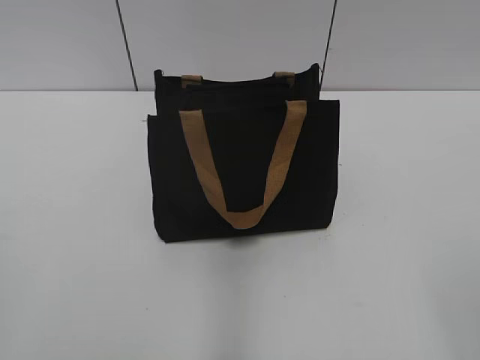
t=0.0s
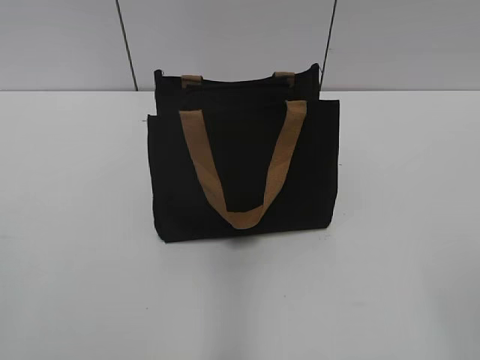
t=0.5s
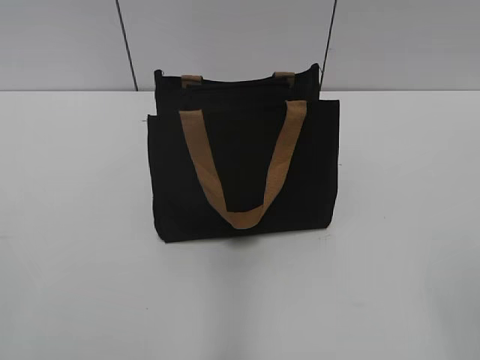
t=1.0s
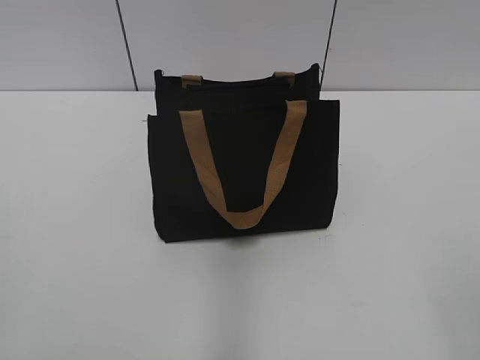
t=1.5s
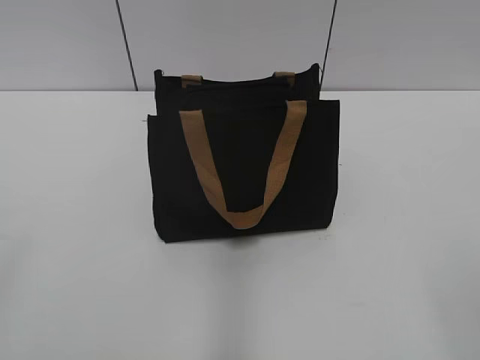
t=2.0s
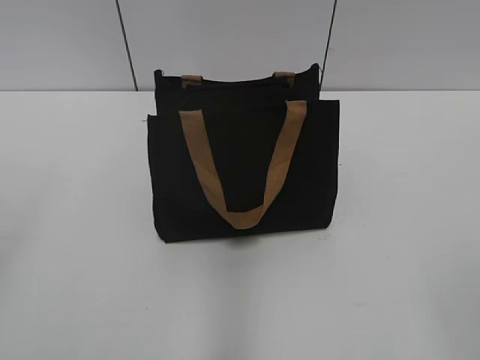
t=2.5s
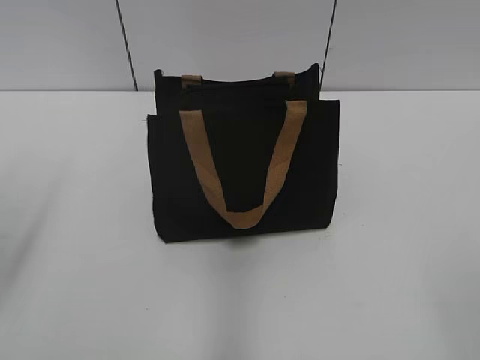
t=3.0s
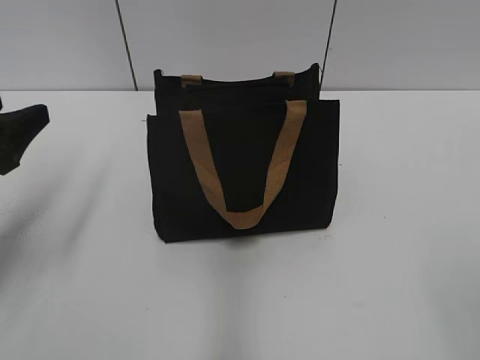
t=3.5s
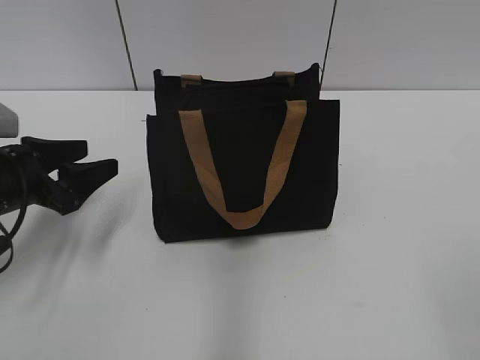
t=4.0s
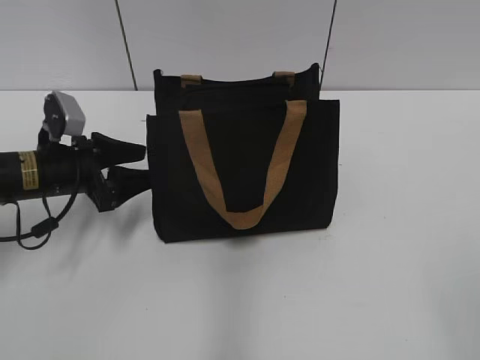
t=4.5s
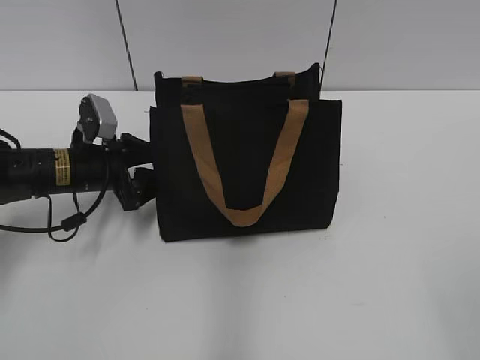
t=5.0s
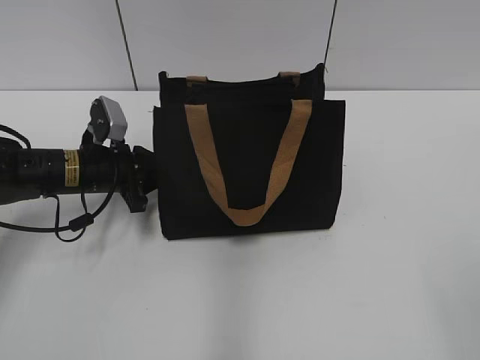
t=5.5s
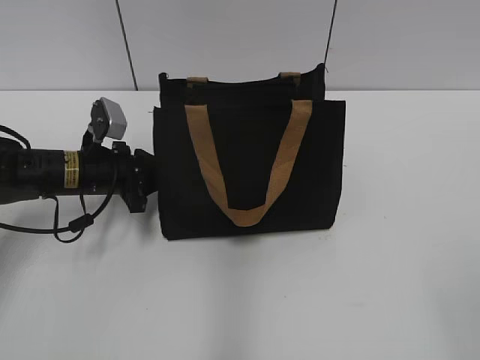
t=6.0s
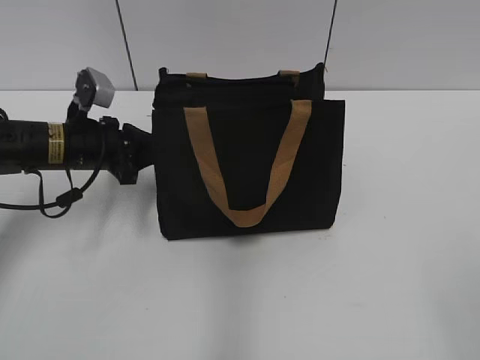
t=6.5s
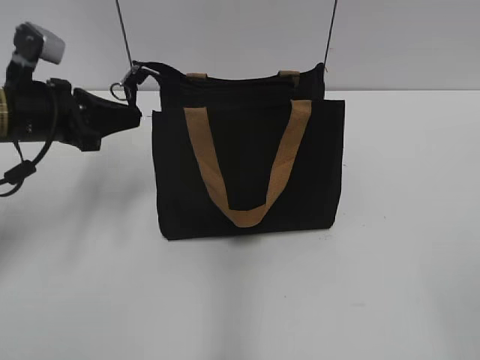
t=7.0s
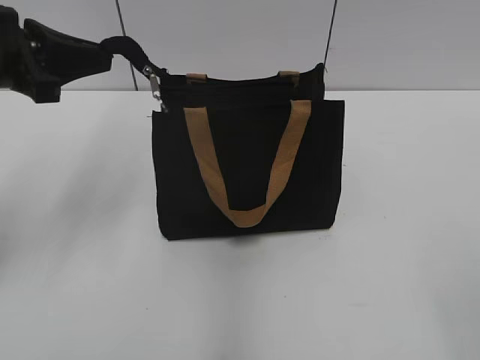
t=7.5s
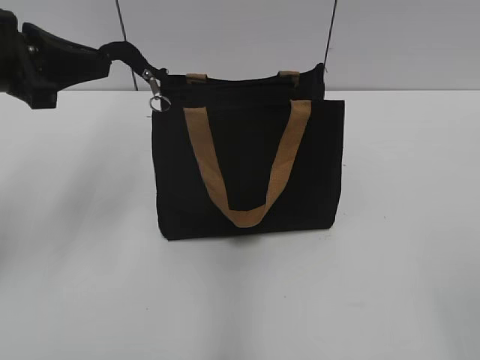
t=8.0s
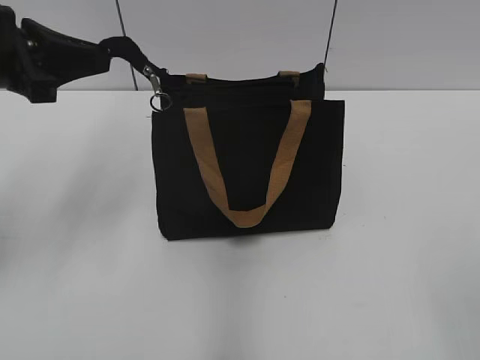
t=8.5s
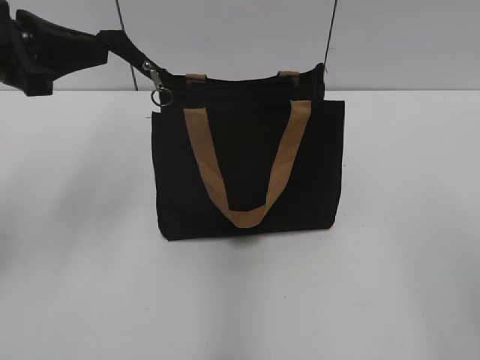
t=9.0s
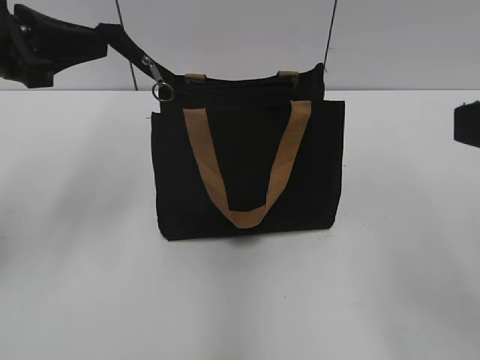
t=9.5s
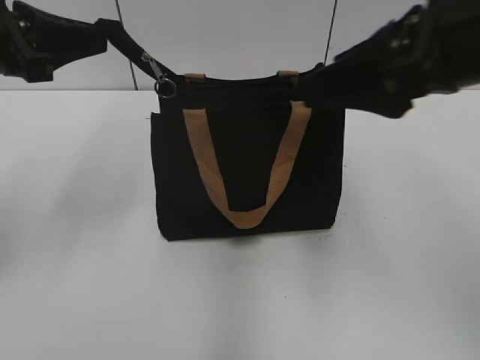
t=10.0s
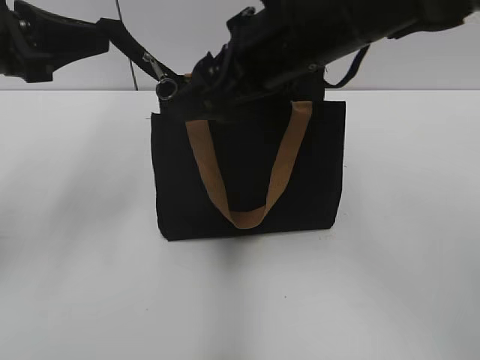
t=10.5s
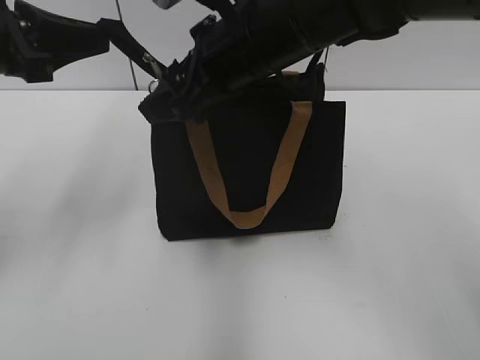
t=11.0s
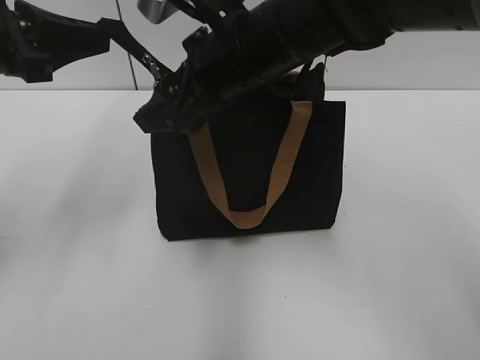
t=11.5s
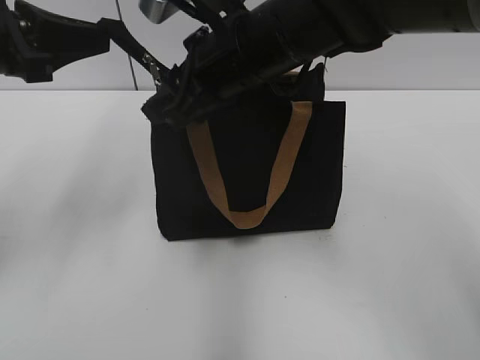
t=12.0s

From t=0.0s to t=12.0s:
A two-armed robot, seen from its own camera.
From t=2.0s to t=4.0s: The left gripper moves forward and downward, some 30 cm.
From t=4.0s to t=6.0s: The left gripper heads forward, to the right and downward, covering about 10 cm, and closes its fingers.
From t=6.0s to t=8.0s: The left gripper is displaced upward by approximately 20 cm.
From t=8.0s to t=10.0s: The right gripper goes some 25 cm forward.
From t=10.0s to t=12.0s: The right gripper travels to the left, forward and downward by approximately 20 cm, and closes its fingers.

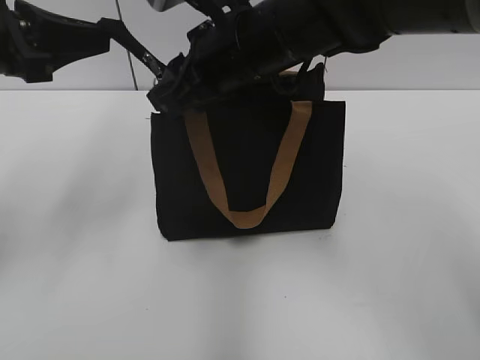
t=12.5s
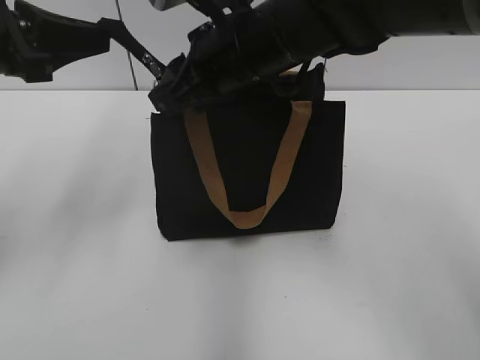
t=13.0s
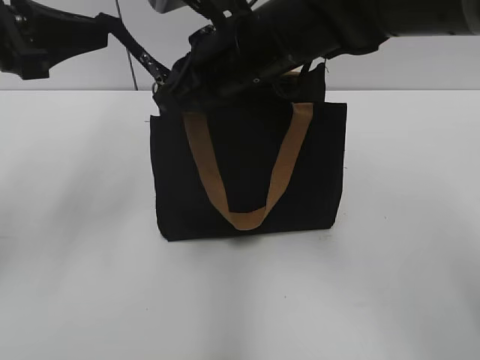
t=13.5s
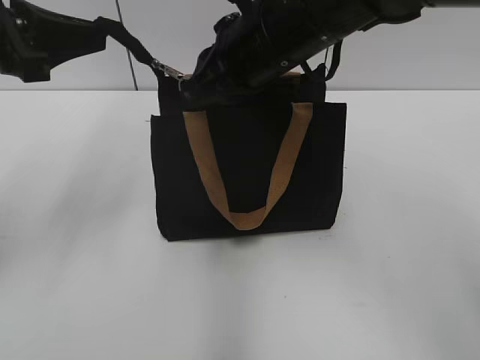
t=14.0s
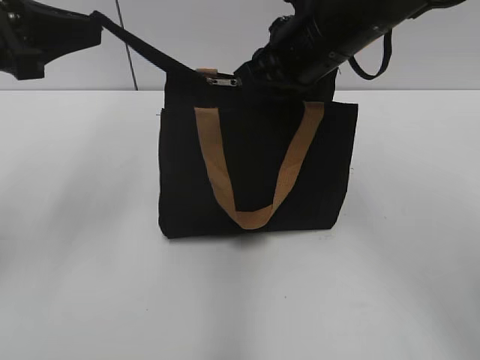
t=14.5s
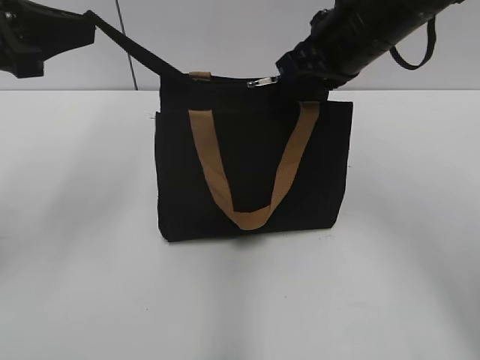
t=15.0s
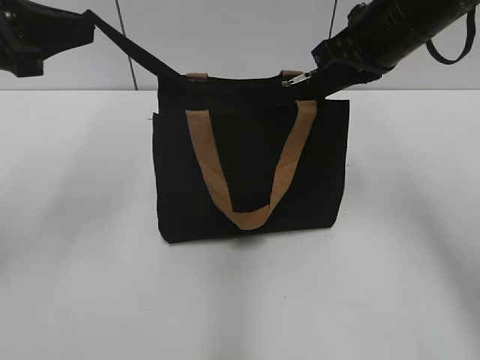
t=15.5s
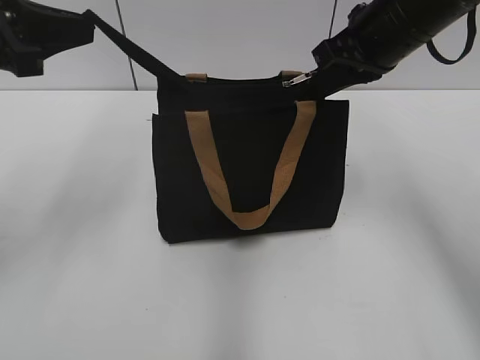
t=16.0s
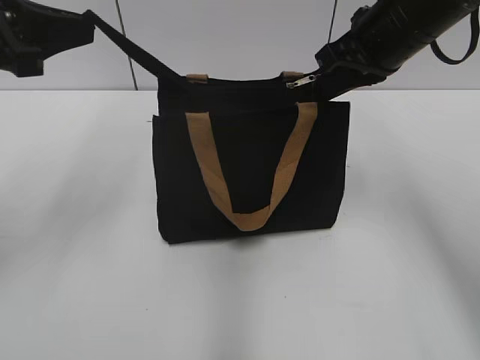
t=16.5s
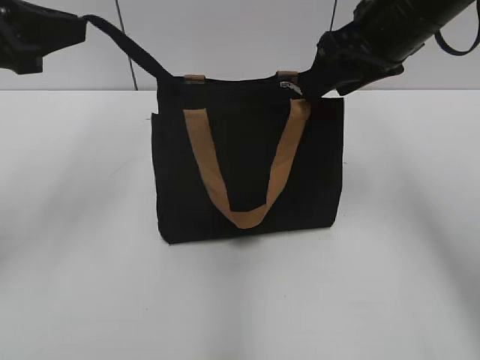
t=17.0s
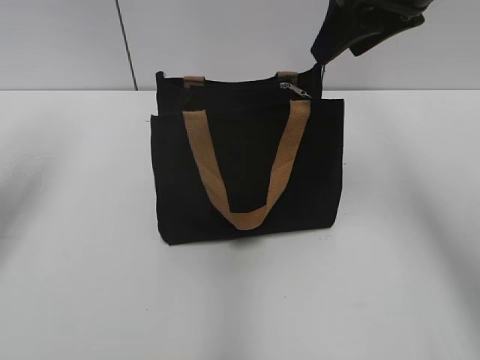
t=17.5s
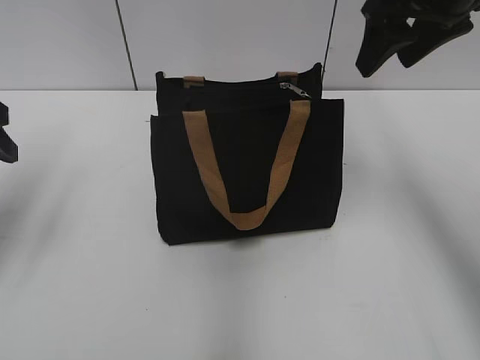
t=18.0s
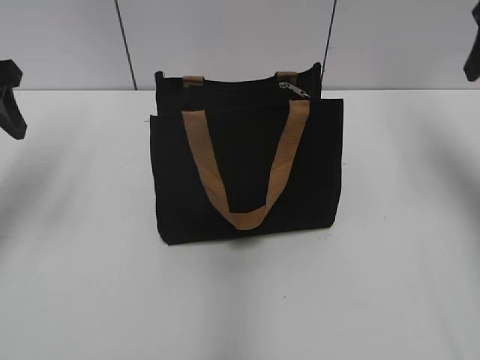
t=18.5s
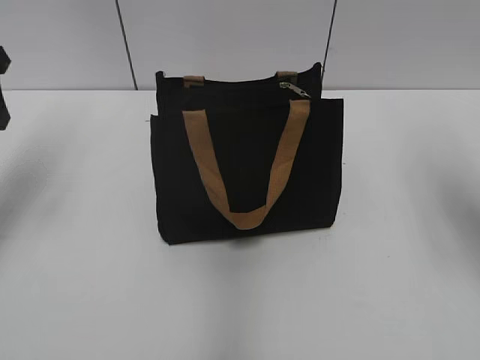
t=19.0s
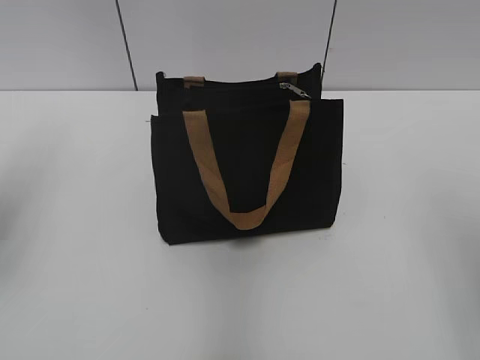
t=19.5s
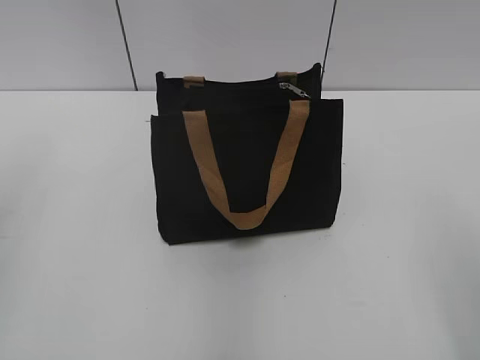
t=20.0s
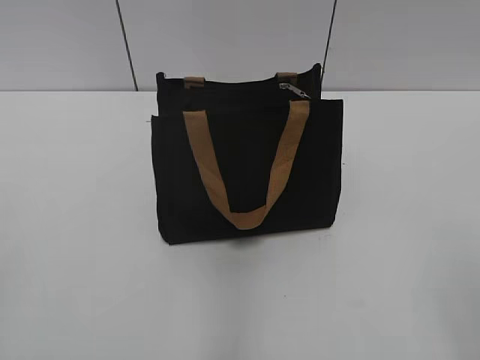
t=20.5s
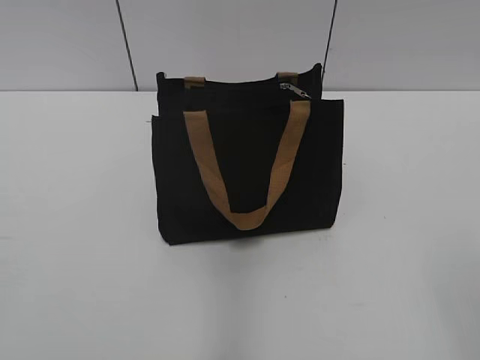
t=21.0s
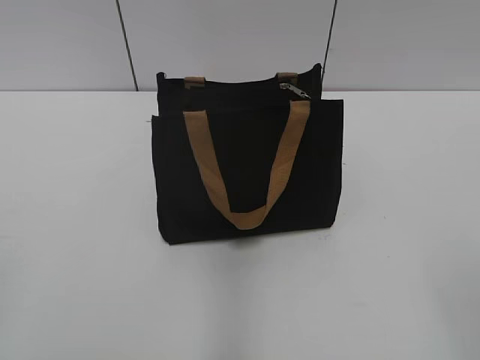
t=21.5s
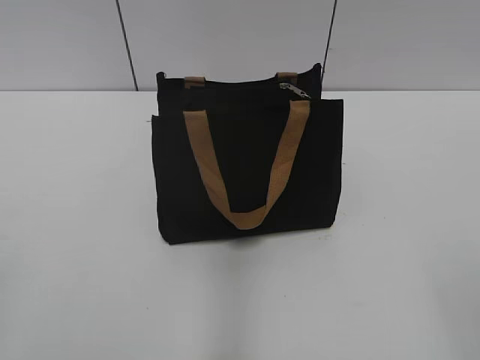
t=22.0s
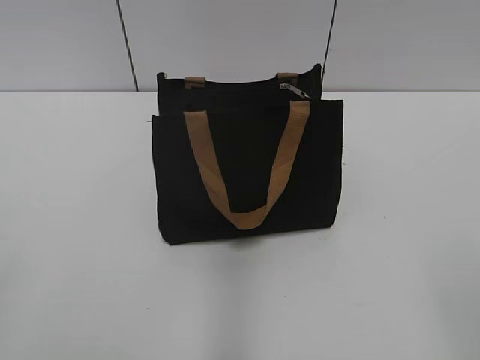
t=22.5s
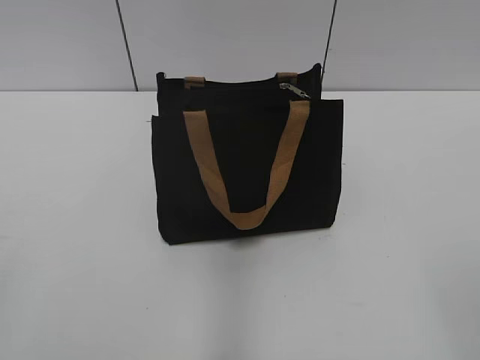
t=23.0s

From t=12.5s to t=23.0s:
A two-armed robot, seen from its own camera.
Step, from t=12.5s to t=16.5s: Zip up the bag with your right hand.
From t=12.5s to t=14.5s: The right gripper goes some 5 cm to the right, and closes up.
From t=14.5s to t=16.5s: The right gripper travels to the right by approximately 5 cm.
From t=16.5s to t=19.0s: The left gripper moves to the left, approximately 5 cm, and opens its fingers. Meanwhile the right gripper shifts roughly 15 cm to the right and backward, and opens.
From t=19.0s to t=21.0s: Both grippers move backward, roughly 30 cm.

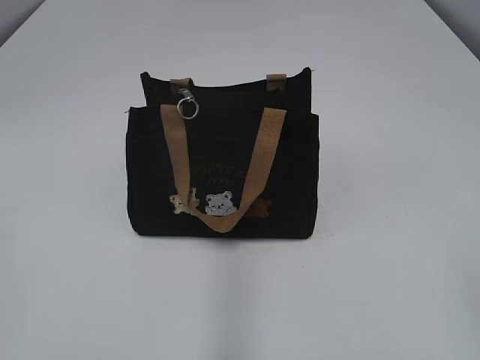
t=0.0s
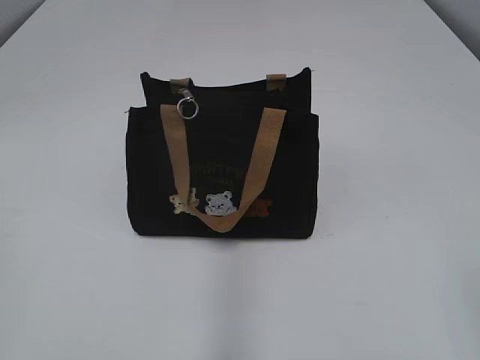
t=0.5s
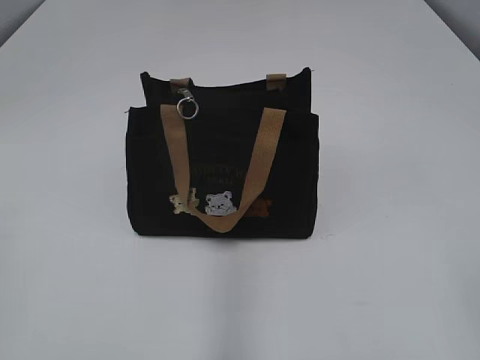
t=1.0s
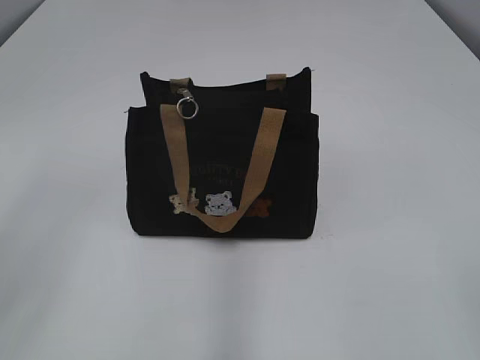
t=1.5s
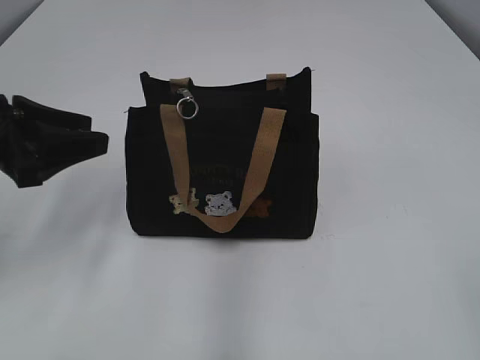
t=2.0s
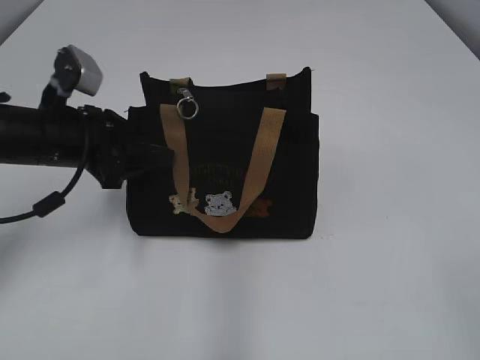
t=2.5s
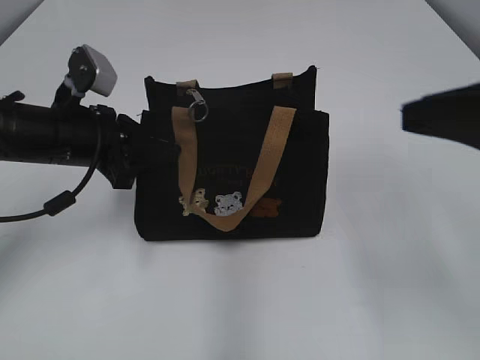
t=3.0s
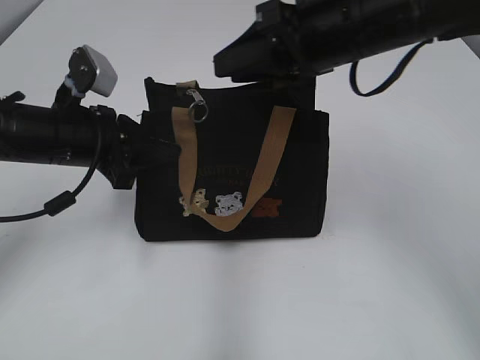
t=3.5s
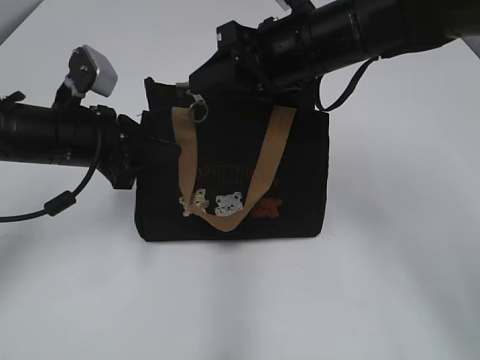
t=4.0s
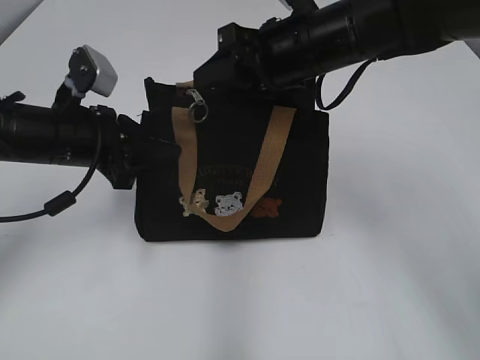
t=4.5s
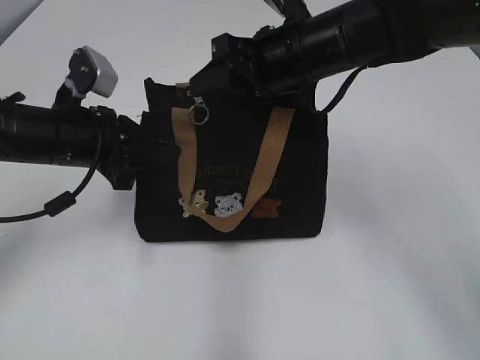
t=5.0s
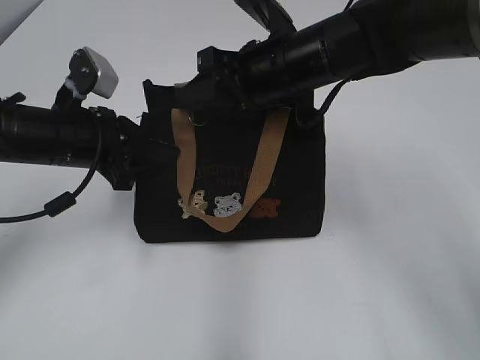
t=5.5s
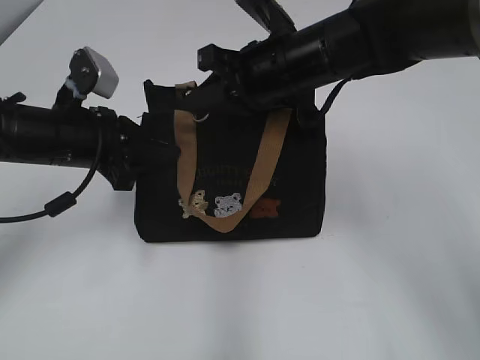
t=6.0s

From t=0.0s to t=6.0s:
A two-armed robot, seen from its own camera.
From t=2.0s to t=4.0s: The left gripper shifts some 10 cm to the right and forward, and closes its fingers. Meanwhile the right gripper goes approximately 40 cm forward and to the left.
From t=4.0s to t=6.0s: The right gripper closes its fingers.
